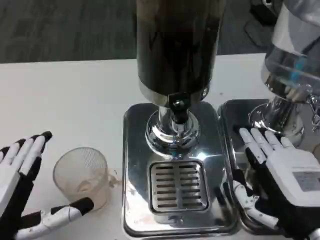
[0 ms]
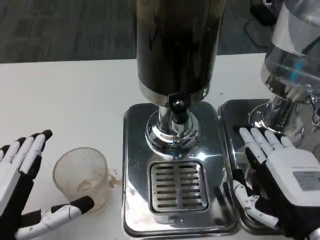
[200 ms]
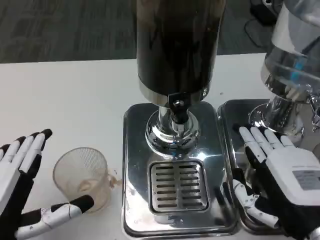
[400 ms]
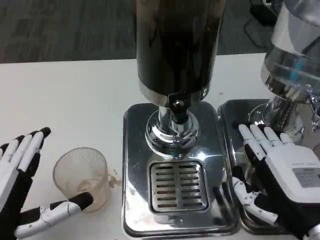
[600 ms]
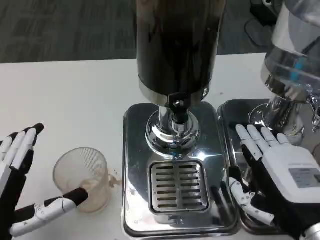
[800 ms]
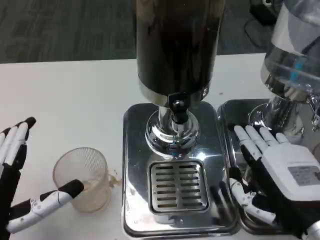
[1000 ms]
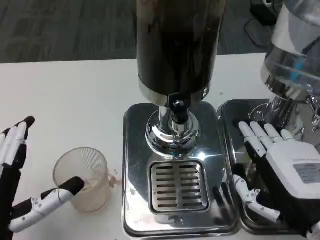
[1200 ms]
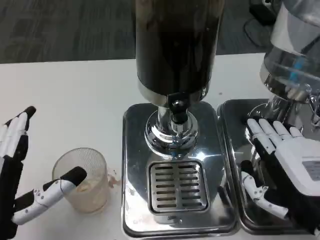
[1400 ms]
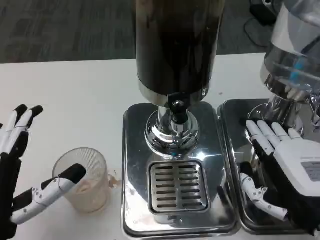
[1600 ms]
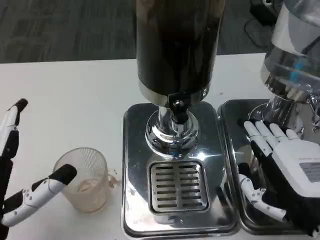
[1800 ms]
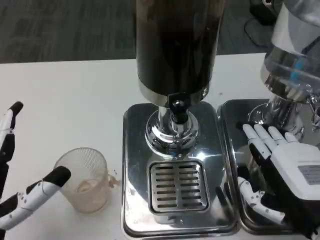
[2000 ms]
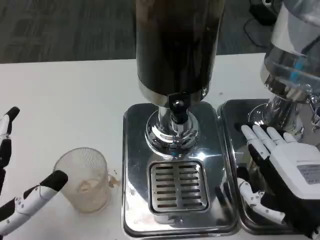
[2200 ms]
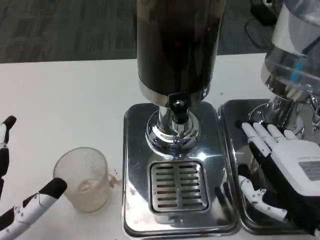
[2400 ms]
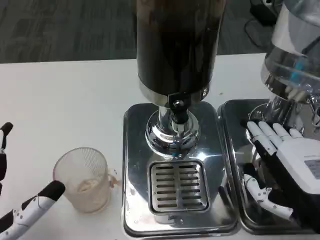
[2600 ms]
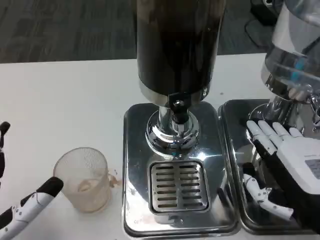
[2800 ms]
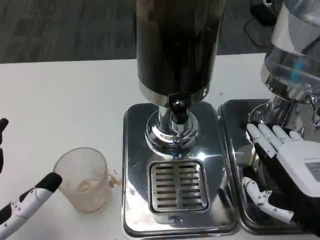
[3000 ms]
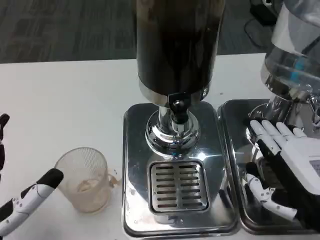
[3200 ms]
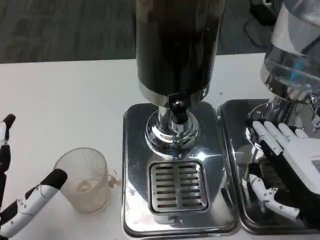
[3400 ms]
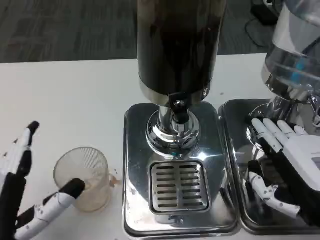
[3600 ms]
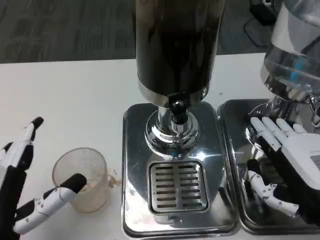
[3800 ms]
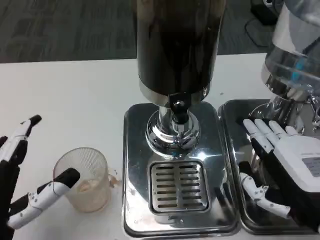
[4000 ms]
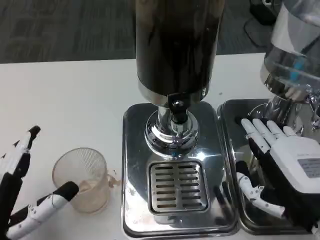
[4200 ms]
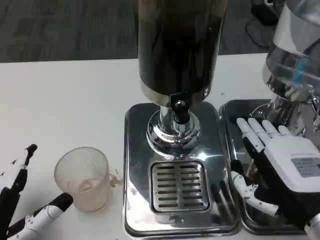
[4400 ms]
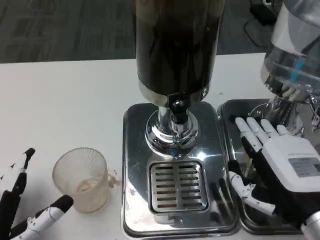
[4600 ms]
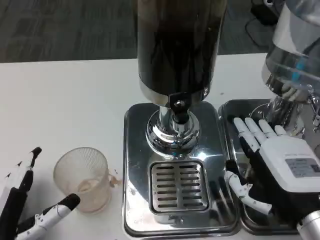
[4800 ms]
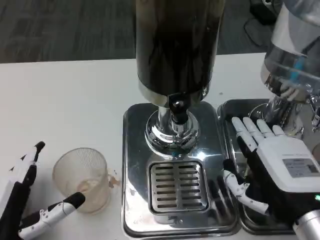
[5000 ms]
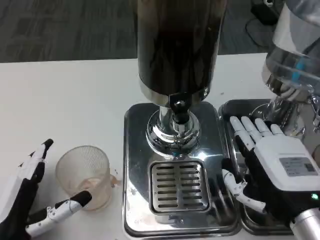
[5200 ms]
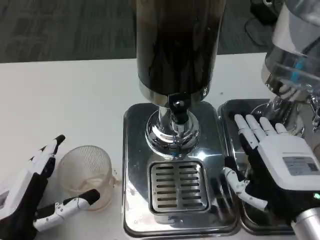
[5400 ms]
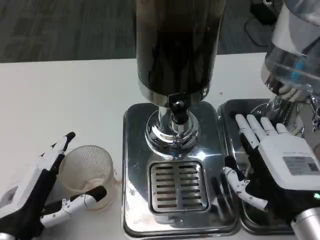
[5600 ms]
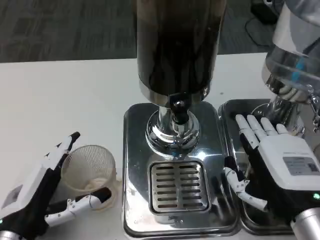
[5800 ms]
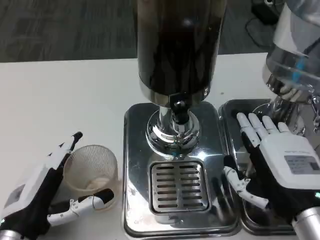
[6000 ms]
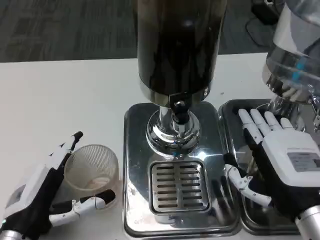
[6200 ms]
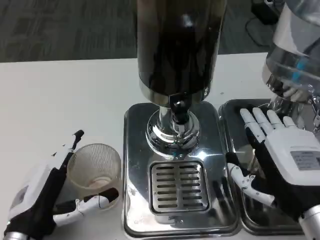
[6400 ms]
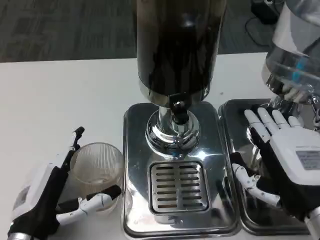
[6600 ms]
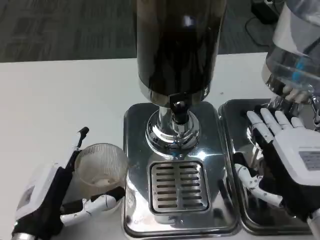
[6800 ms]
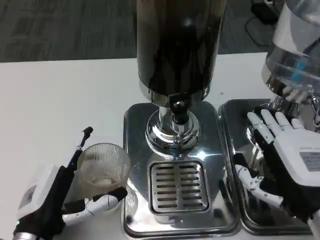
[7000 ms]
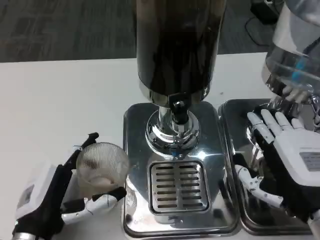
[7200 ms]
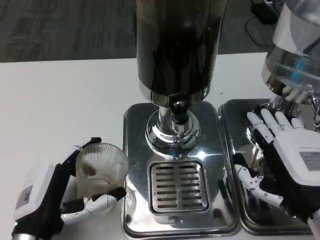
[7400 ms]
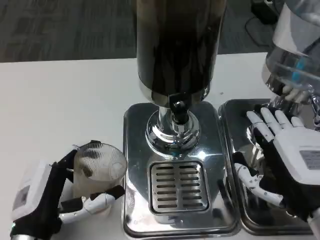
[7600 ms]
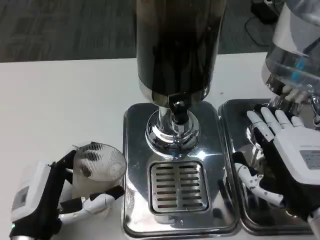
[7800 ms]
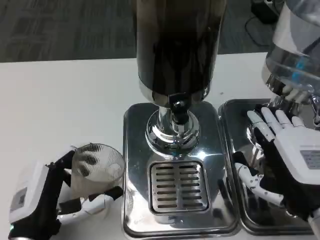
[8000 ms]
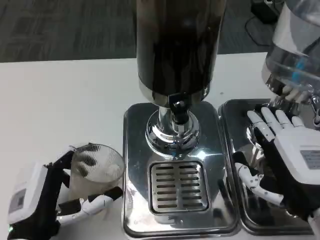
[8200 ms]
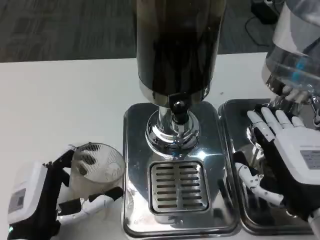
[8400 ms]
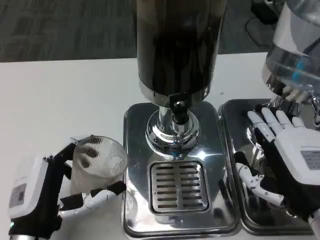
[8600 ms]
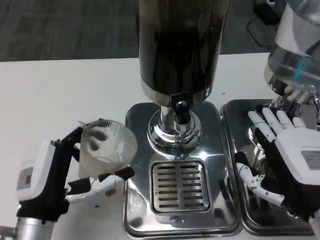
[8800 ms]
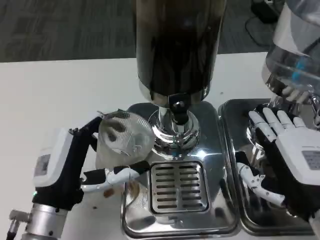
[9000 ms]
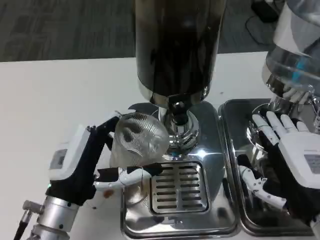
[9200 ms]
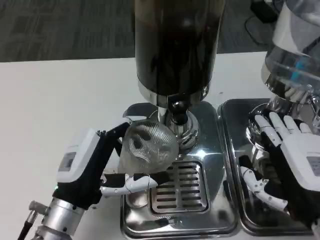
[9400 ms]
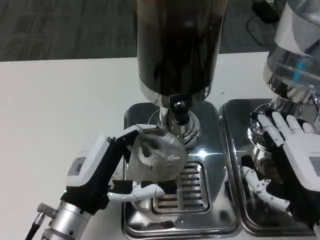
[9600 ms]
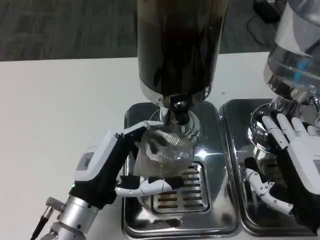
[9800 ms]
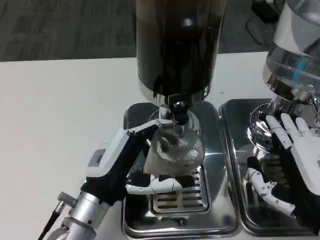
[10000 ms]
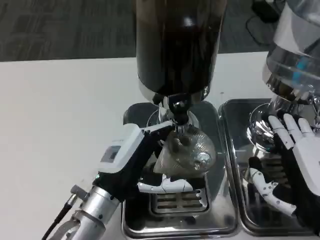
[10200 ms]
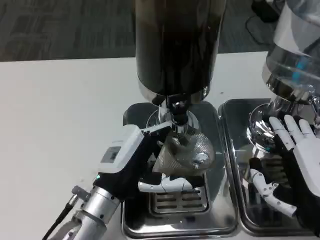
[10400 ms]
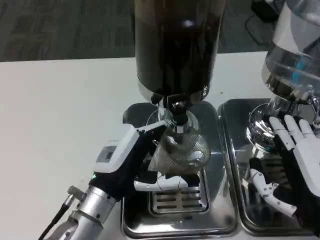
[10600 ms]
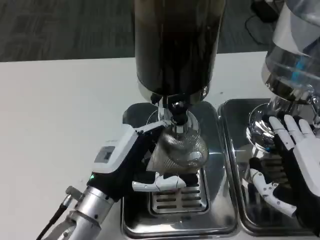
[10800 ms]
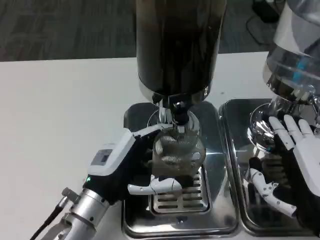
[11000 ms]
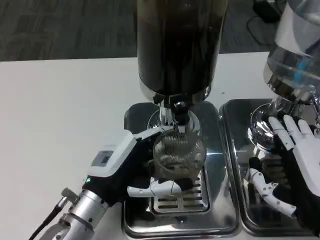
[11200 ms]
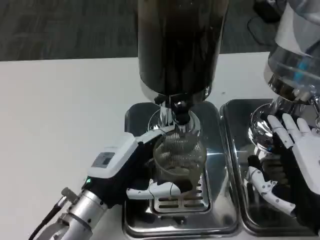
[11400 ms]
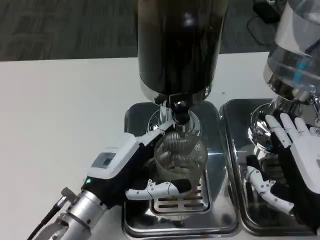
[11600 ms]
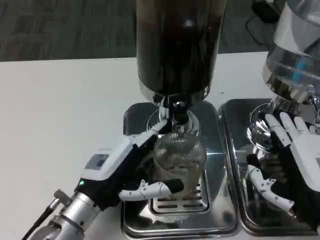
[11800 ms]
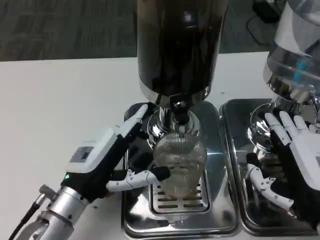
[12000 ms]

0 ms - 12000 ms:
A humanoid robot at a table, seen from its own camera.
Task of the whole recording: Grasp the cup under the faucet to collect the drink, then remove the cup.
1600 ms - 4400 ms: The hands stay close to where they were, moving slightly.
4400 ms - 6000 ms: The left hand goes roughly 5 cm forward.
6000 ms - 7600 ms: The hands make only small movements.
7600 ms - 9000 ms: The left hand moves some 5 cm.
9000 ms - 10400 ms: The left hand shifts by about 5 cm.

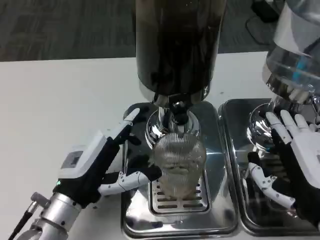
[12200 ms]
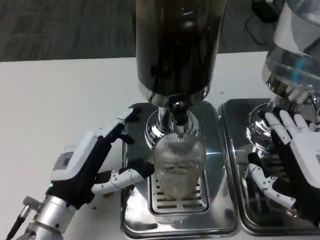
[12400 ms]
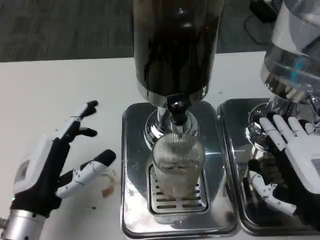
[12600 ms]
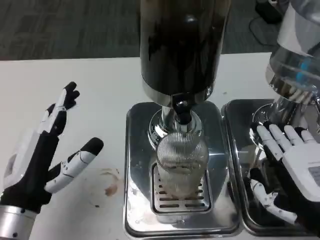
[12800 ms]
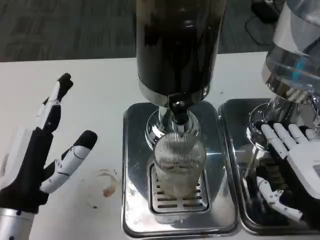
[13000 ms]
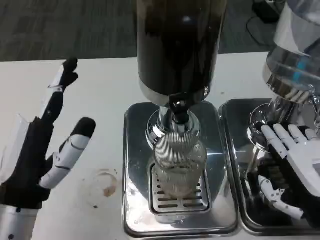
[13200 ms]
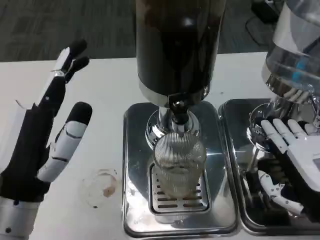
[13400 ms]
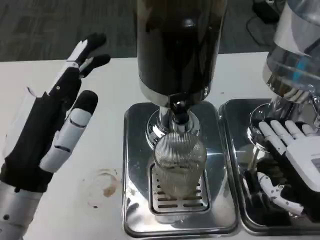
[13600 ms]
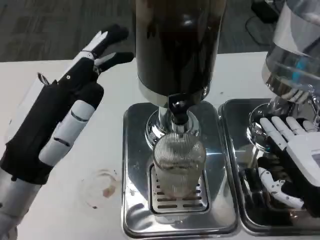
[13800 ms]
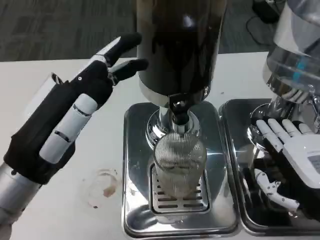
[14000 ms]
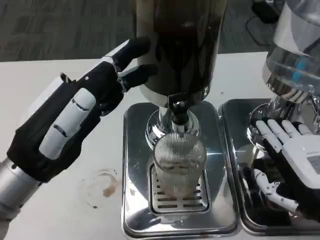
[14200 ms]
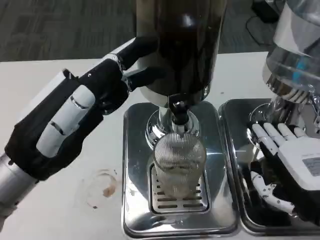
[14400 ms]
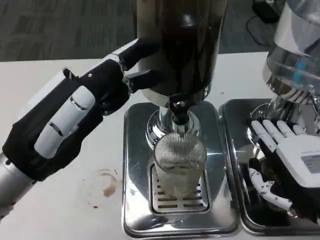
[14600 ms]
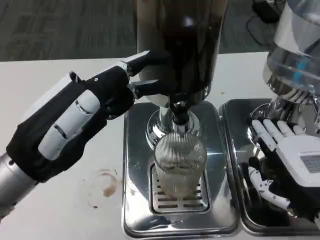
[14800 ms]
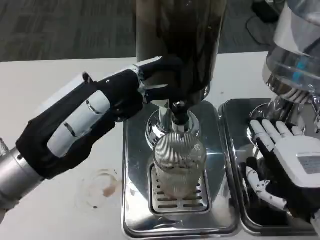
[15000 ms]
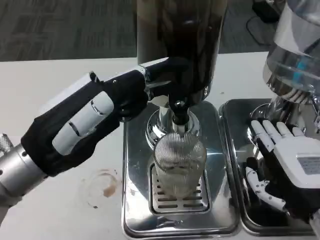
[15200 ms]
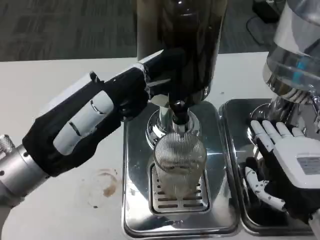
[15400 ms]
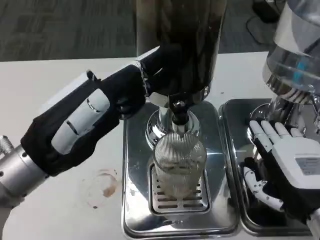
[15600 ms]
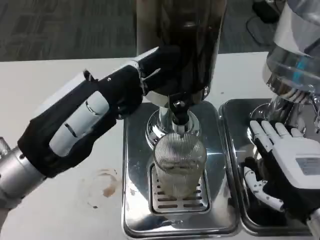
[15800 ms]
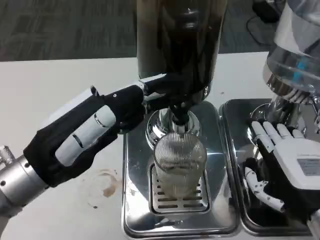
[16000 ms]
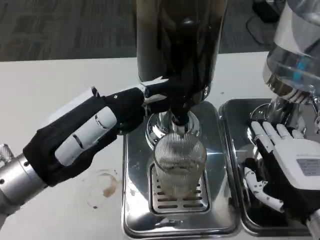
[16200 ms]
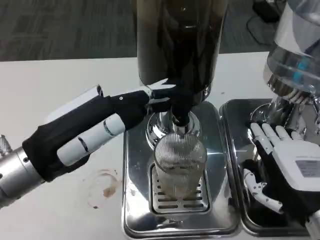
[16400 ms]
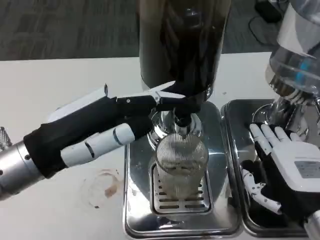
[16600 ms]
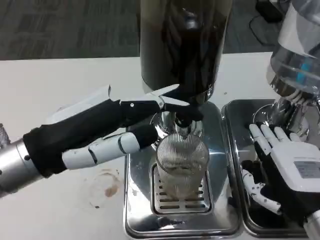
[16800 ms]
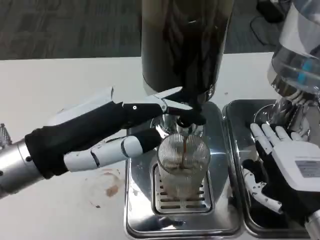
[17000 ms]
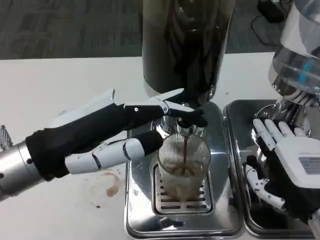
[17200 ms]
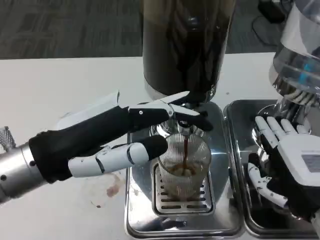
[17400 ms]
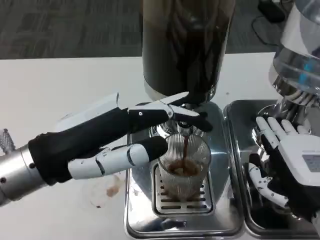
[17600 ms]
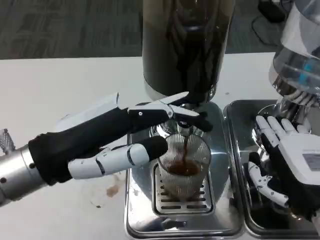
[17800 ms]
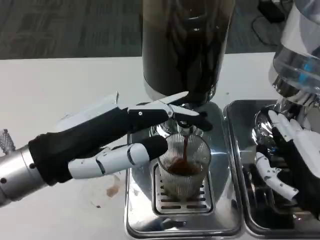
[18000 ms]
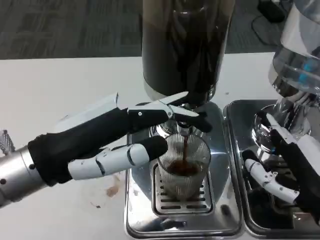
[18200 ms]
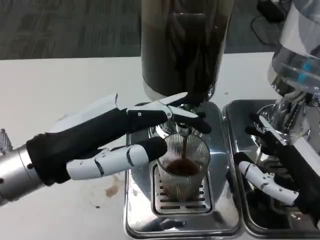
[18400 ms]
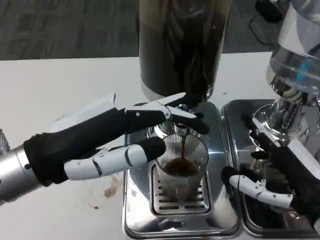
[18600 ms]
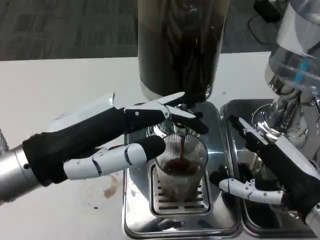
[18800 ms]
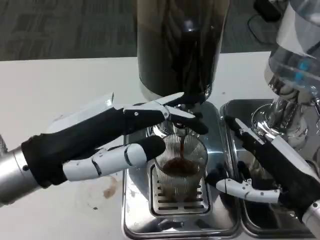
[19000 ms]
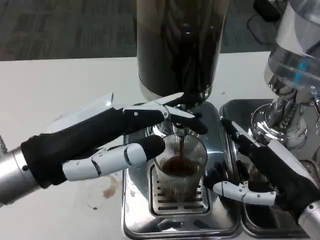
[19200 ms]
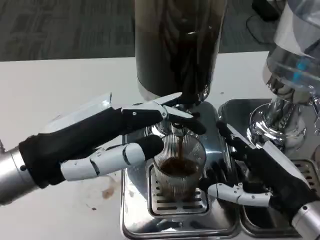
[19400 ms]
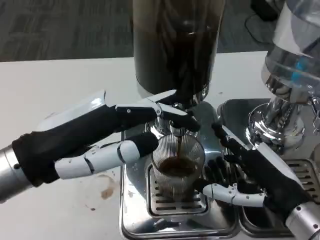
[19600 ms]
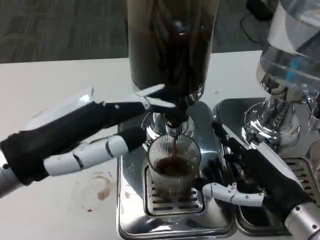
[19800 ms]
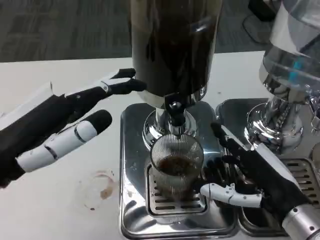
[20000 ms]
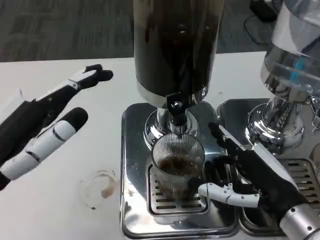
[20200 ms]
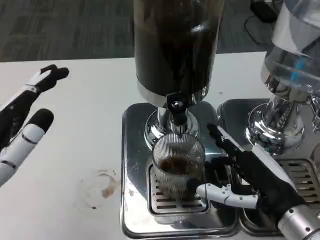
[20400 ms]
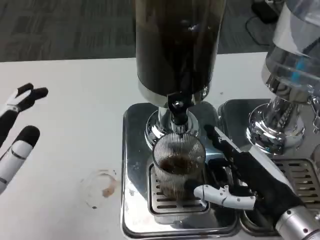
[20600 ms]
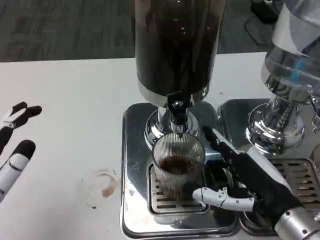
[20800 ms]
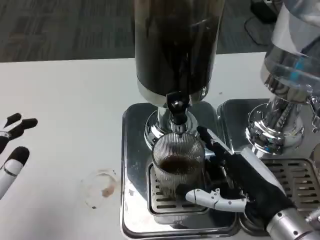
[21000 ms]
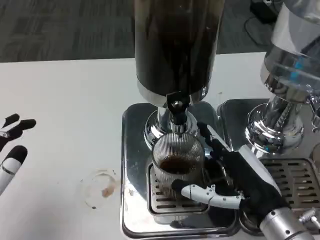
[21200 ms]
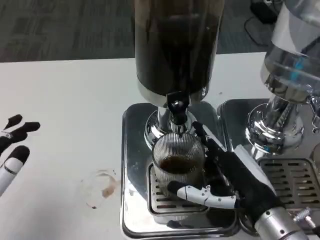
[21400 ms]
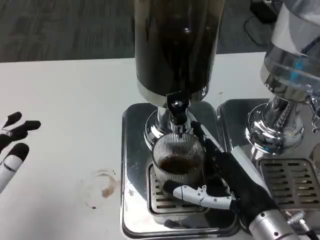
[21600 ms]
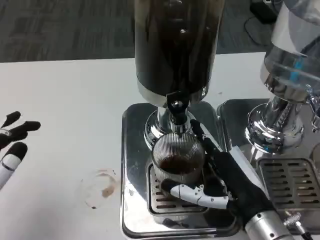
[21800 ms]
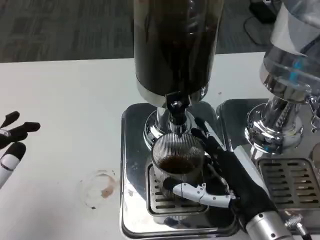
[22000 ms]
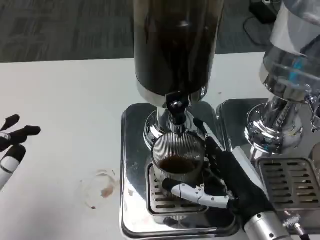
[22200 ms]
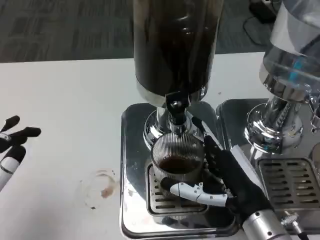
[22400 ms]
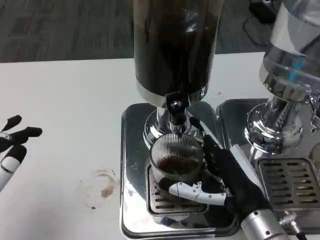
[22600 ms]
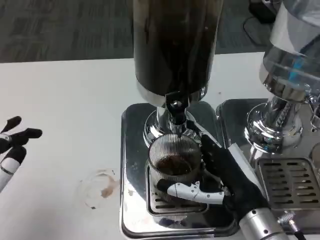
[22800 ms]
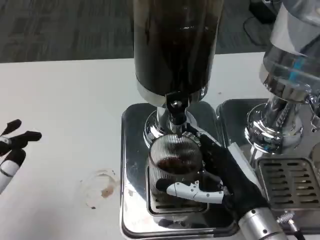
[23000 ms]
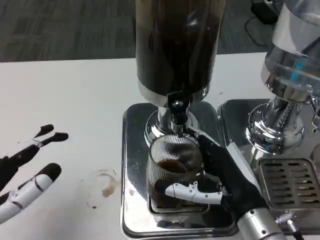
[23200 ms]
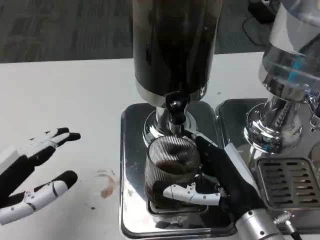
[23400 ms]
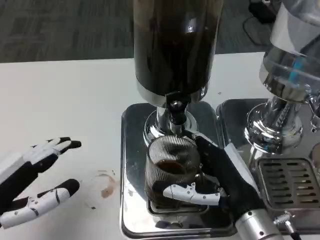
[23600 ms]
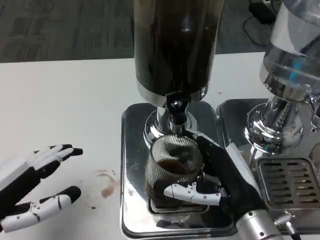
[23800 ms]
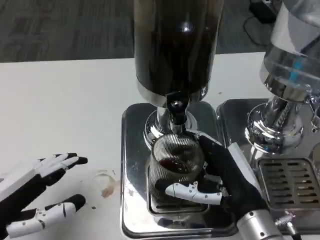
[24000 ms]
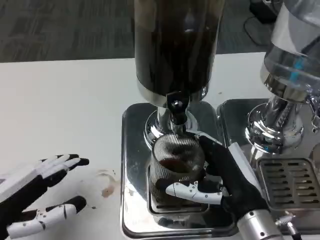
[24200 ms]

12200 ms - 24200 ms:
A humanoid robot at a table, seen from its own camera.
Task of the whole recording: Grasp the cup under the faucet to collect the drink, then remove the cup.
12200 ms - 13800 ms: The left hand moves upward, some 10 cm.
19800 ms - 21200 ms: The left hand travels downward, backward and to the left by roughly 15 cm.
21200 ms - 22600 ms: There are only small adjustments of the hands.
